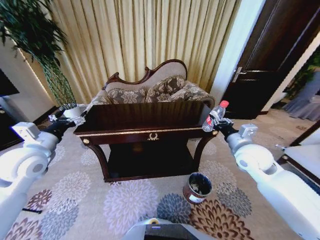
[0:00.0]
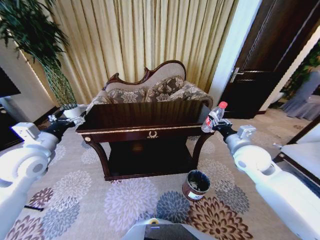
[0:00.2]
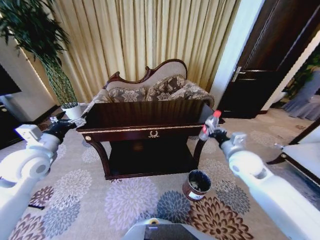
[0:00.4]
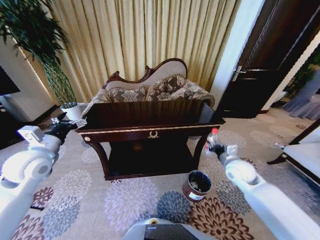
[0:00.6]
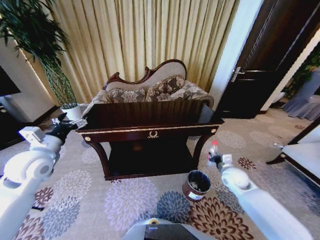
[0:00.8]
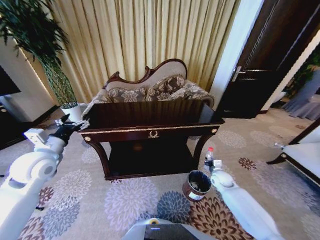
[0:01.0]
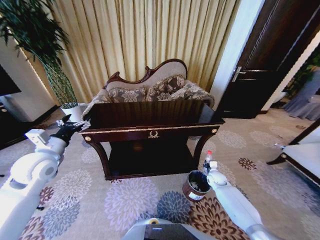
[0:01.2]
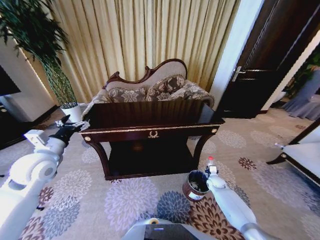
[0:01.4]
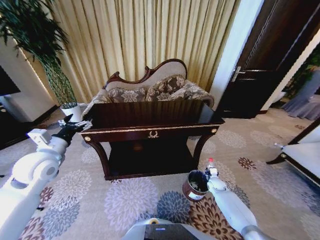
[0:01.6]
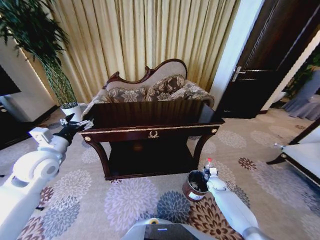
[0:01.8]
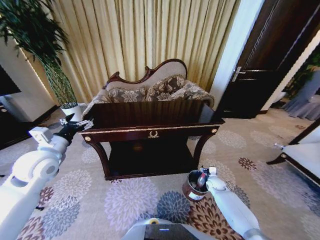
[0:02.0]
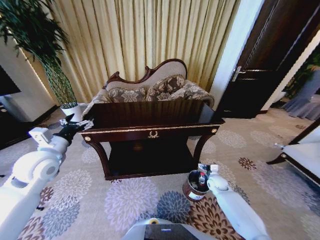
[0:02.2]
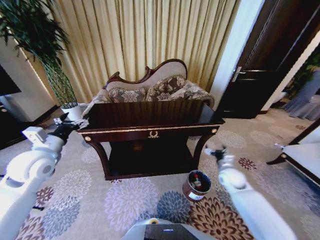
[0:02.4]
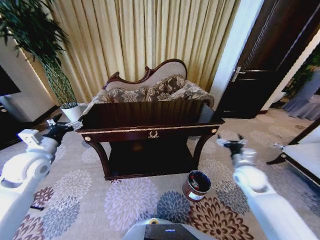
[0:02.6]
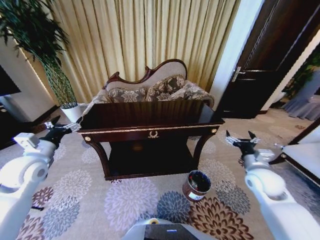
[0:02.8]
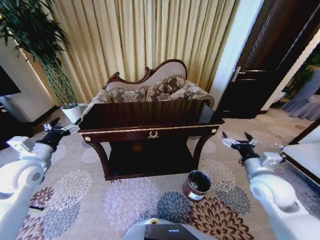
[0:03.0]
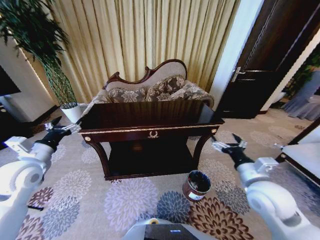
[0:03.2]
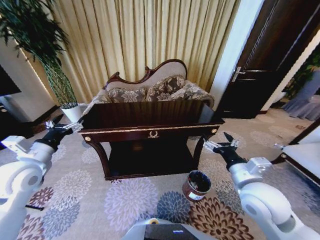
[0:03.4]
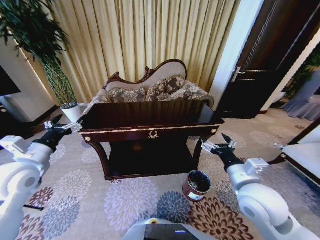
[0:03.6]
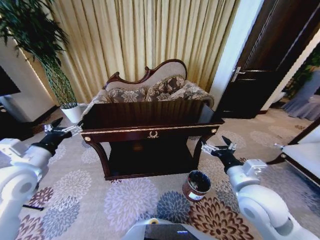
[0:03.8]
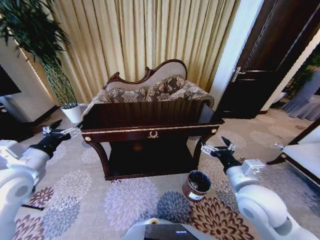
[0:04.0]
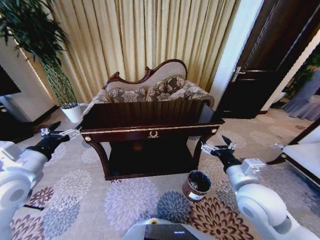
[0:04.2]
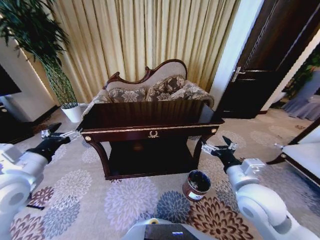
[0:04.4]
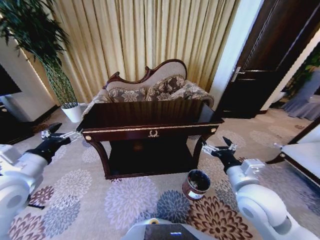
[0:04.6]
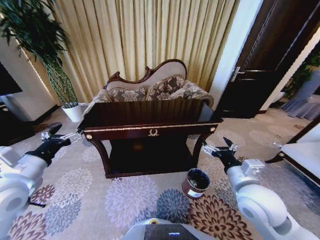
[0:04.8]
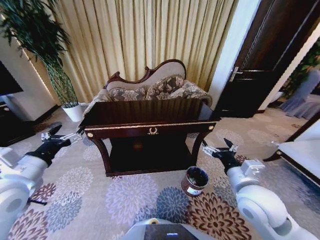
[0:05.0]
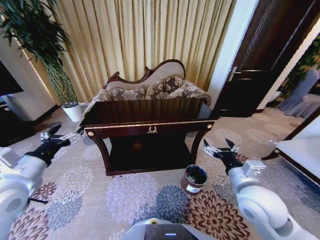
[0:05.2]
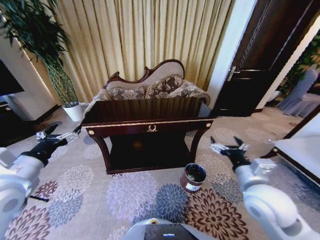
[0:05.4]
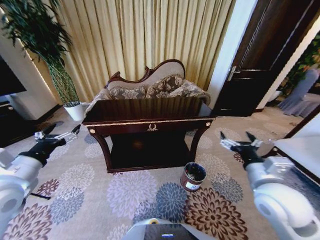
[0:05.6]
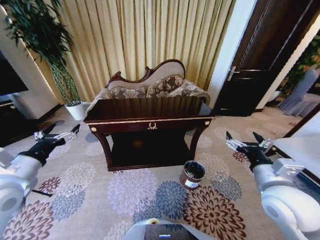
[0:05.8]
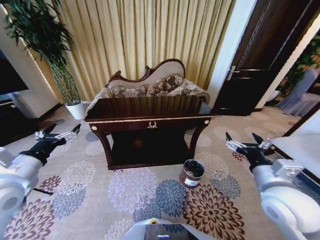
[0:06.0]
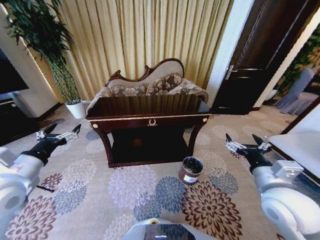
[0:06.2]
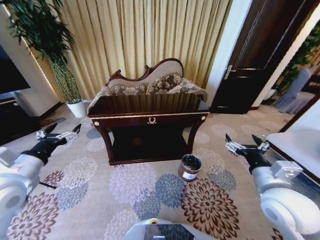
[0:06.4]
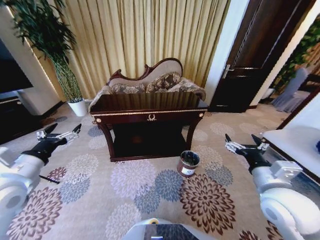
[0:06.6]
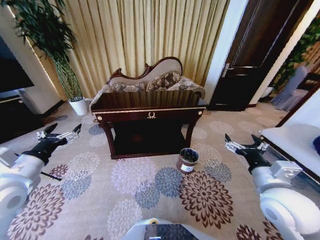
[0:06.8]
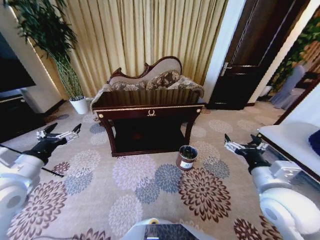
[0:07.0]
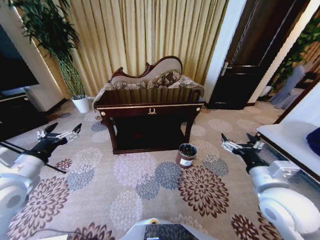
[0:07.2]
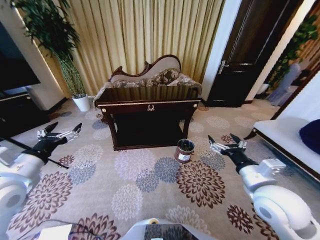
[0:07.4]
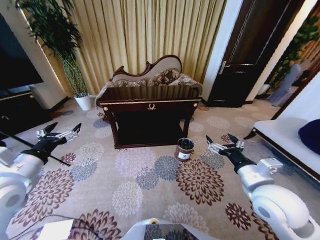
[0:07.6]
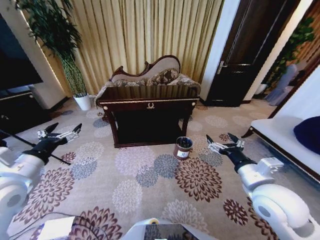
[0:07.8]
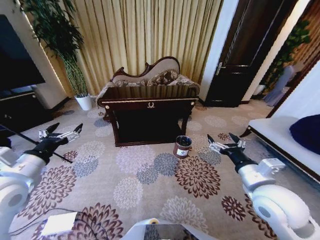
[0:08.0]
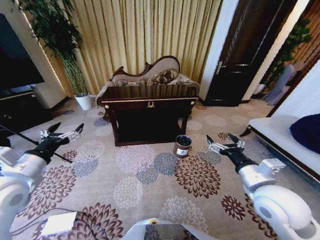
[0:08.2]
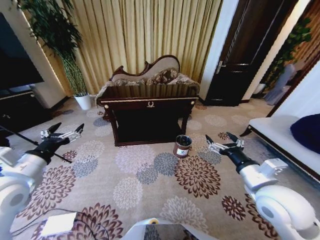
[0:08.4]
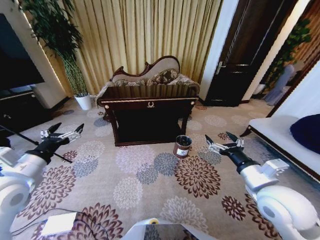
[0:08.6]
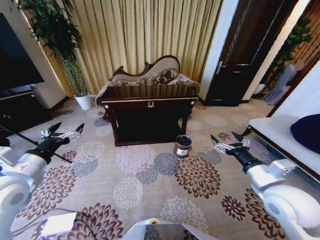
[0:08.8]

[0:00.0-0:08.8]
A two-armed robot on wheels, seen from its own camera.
Task of the whole recording: Move to the front of the table and place the trash on the table into the trash bin.
0:00.0 to 0:01.4: The right gripper is displaced downward by roughly 35 cm.
0:01.4 to 0:03.0: The right gripper travels upward and backward by some 35 cm, and opens.
0:03.0 to 0:04.4: The right gripper shifts about 10 cm to the left. Meanwhile the left gripper is displaced backward by about 5 cm.
0:04.4 to 0:05.8: The right gripper heads to the right, covering roughly 5 cm.

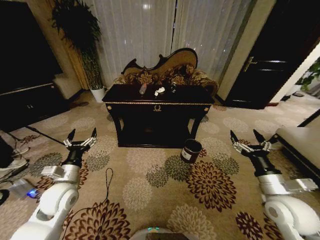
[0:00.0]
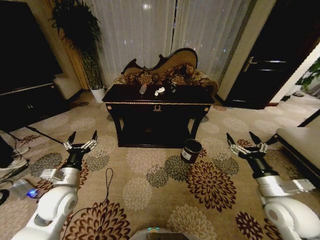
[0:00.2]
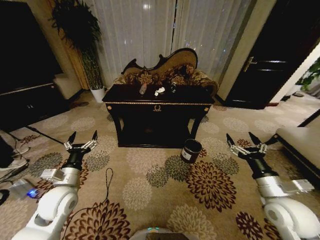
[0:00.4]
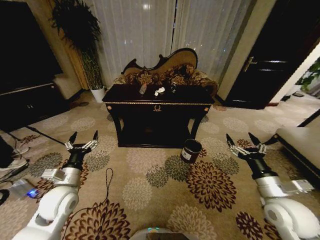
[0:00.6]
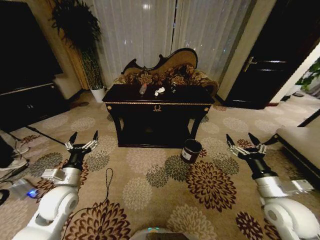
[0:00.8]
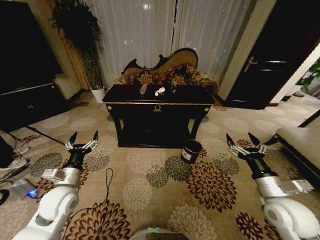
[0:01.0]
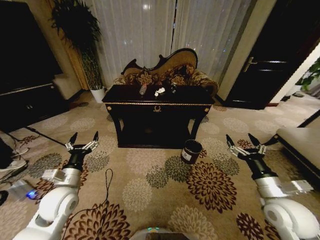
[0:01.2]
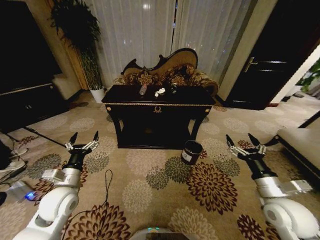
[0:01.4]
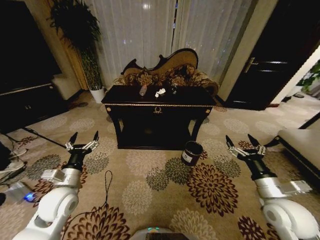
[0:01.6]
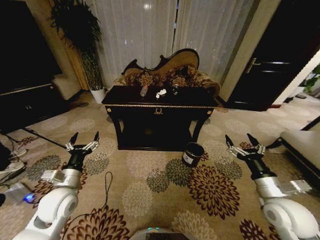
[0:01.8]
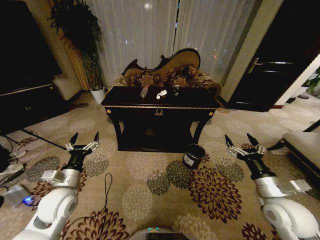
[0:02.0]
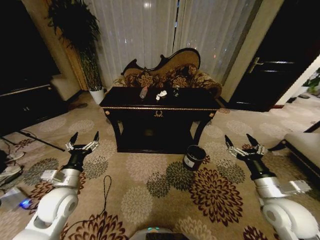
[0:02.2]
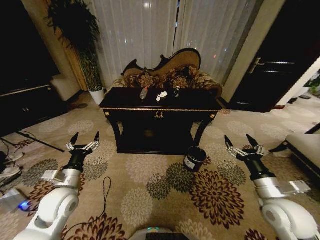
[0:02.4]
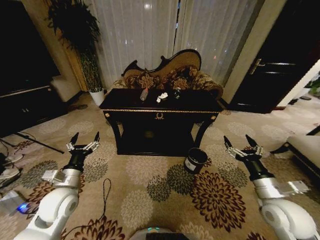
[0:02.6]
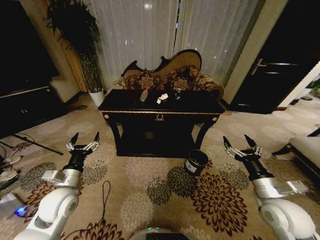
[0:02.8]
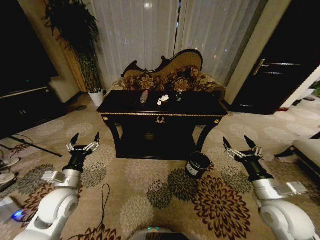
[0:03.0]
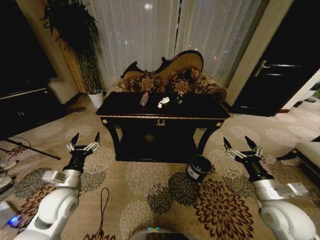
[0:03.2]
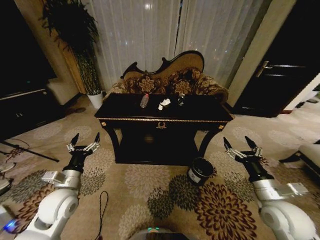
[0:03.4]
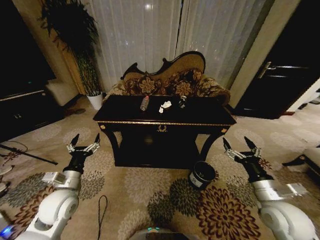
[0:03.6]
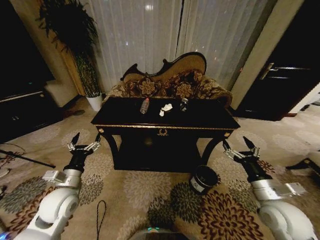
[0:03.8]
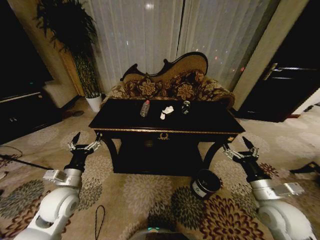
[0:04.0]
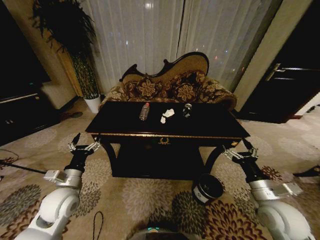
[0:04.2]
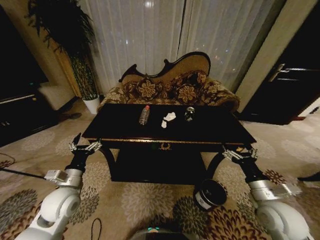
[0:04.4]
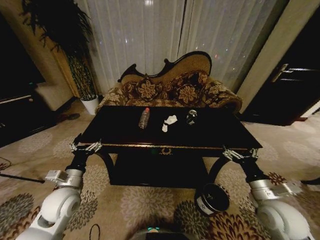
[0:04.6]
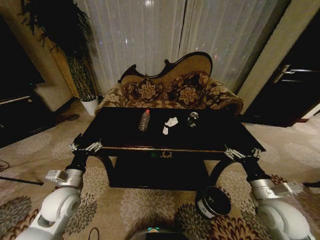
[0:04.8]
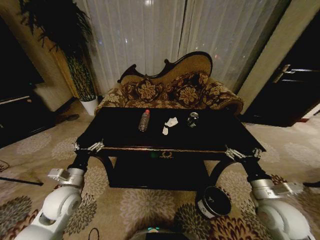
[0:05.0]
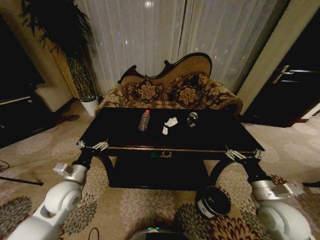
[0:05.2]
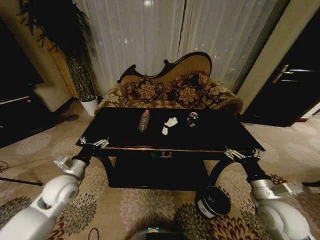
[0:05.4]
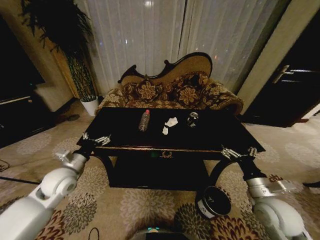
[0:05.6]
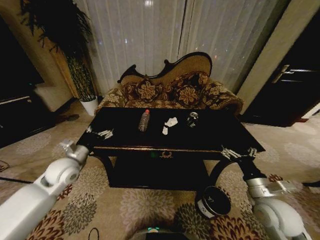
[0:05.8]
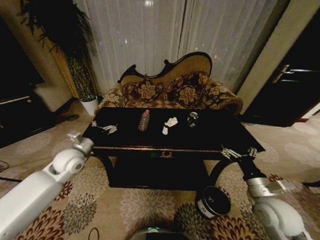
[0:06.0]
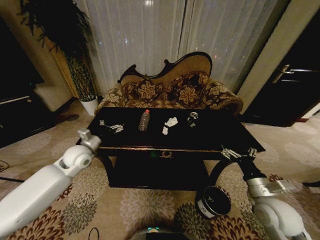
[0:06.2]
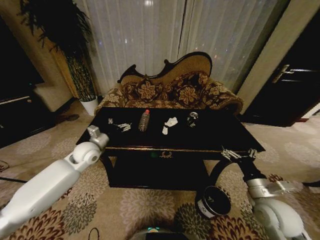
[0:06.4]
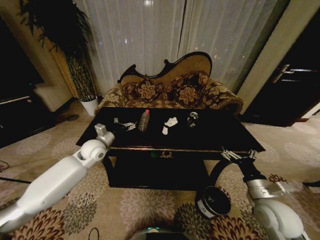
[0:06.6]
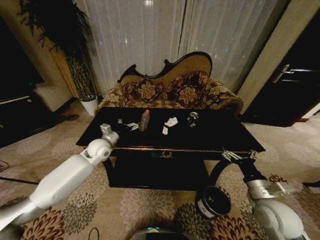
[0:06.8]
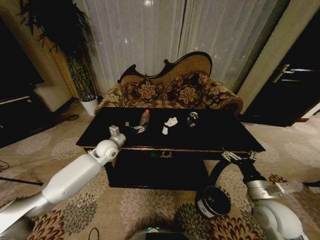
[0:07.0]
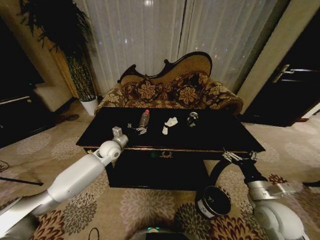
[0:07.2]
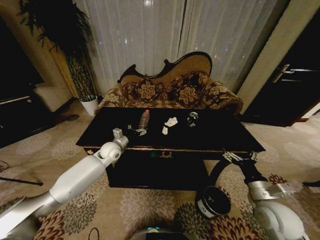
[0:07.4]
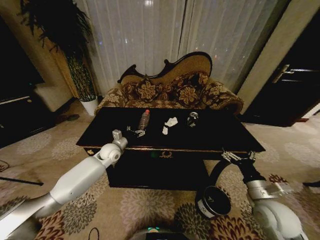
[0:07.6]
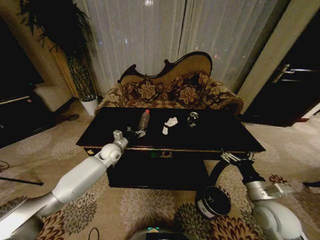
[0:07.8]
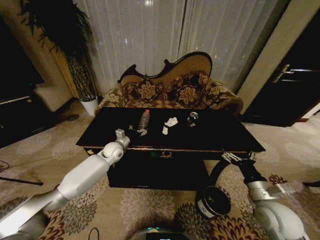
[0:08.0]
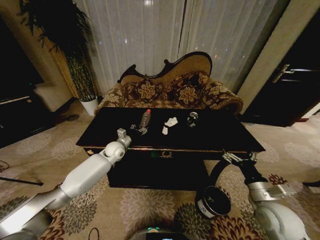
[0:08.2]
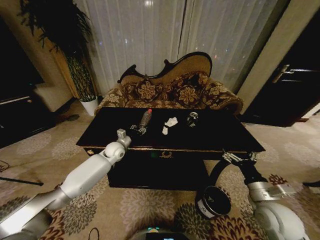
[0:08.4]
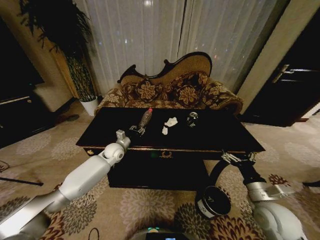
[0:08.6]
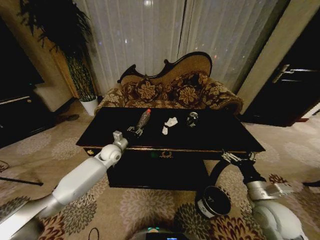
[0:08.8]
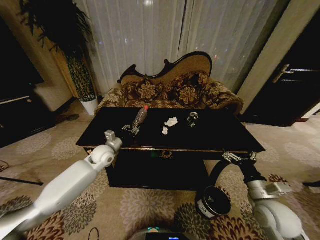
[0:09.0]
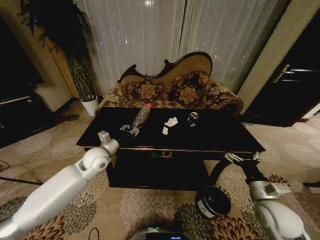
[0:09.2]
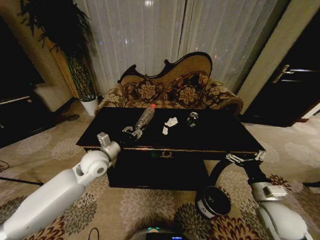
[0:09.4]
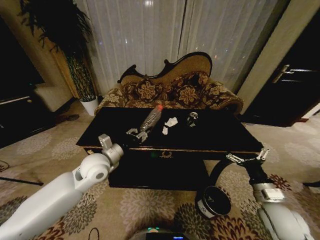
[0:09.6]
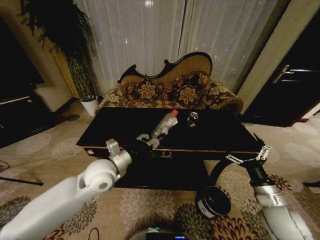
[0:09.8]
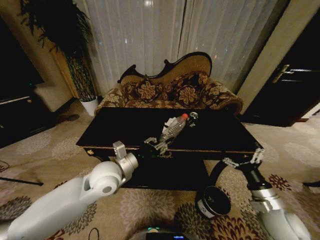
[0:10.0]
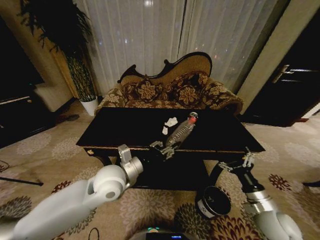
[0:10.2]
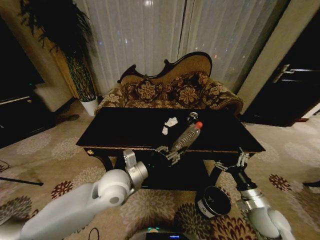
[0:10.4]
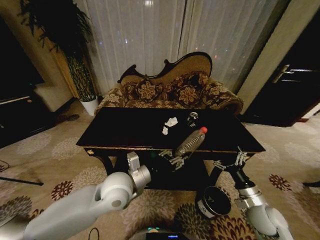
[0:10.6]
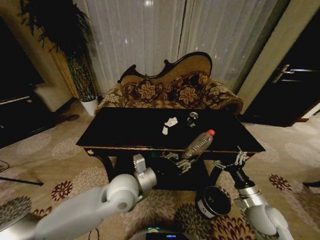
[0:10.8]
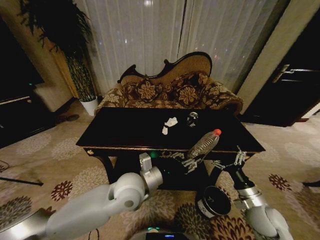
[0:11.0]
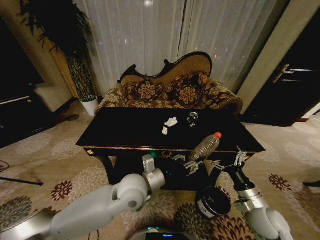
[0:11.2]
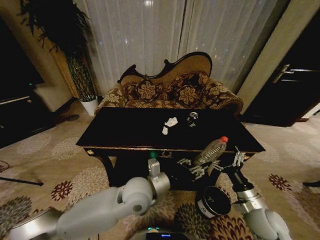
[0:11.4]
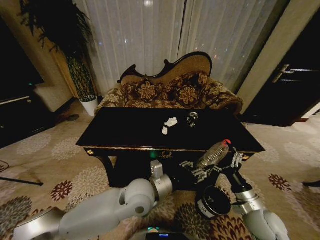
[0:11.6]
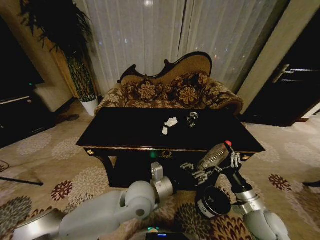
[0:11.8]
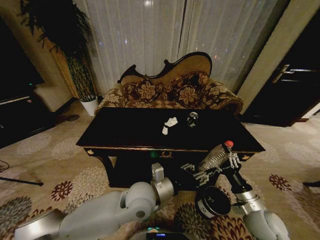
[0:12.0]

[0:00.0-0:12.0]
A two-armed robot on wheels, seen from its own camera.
Task of the whole recording: Move to the front of the table and place the trash on the table into the trash bin.
0:04.4 to 0:06.0: The left gripper travels forward and upward by about 15 cm.
0:06.0 to 0:07.6: The left gripper moves to the right, forward and downward, roughly 15 cm.
0:07.6 to 0:09.0: The left gripper closes up.
0:09.0 to 0:10.4: The left gripper shifts approximately 20 cm backward, to the right and upward; the right gripper goes about 5 cm downward.
0:10.4 to 0:12.0: The left gripper moves to the right, approximately 10 cm. Meanwhile the right gripper closes.

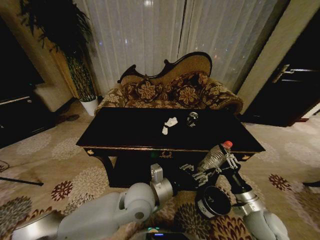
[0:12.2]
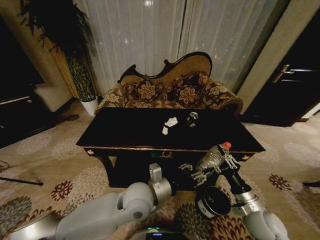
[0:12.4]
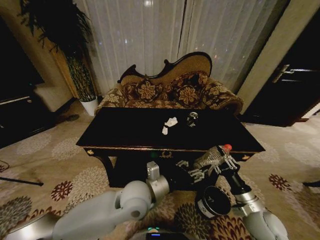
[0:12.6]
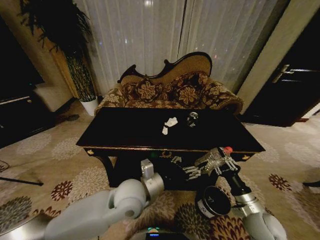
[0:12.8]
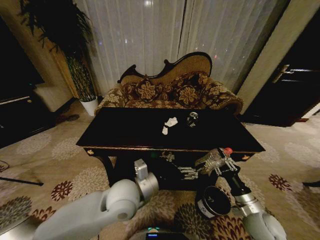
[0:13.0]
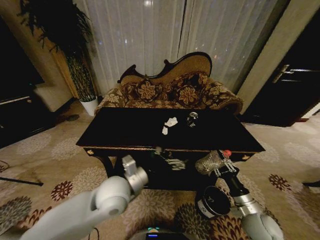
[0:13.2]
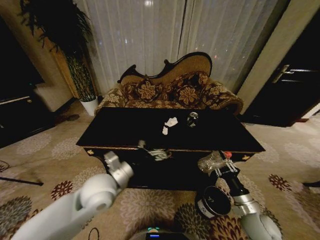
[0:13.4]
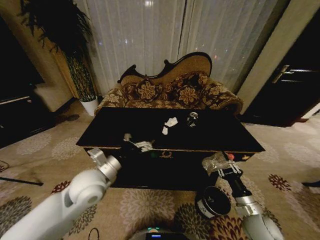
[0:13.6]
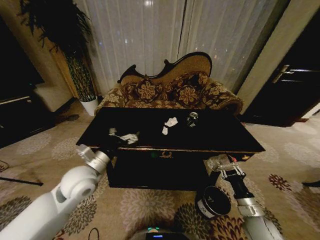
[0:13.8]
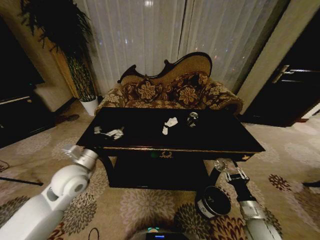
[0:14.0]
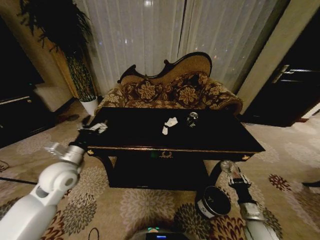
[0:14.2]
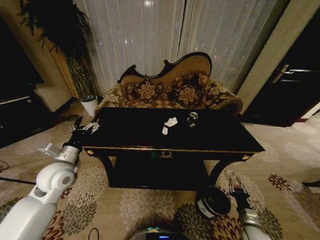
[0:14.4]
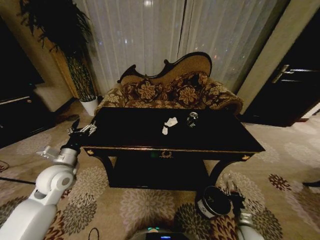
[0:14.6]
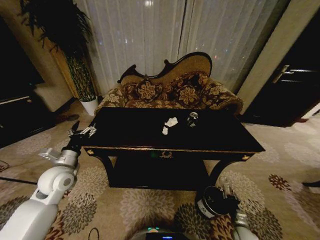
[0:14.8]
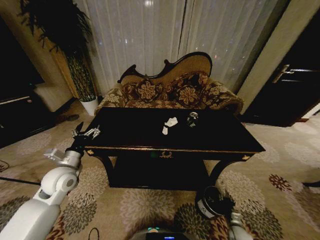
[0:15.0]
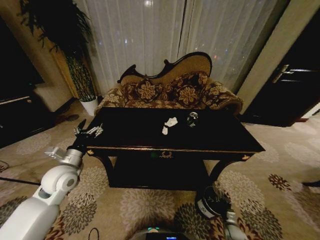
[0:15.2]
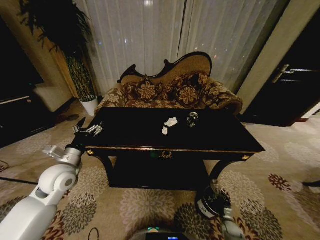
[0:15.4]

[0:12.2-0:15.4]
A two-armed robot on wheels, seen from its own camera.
Task of the whole recording: Move to the front of the table and place the trash on the table into the trash bin.
0:12.2 to 0:13.8: The left gripper heads to the left, covering roughly 20 cm, and opens, while the right gripper changes place by approximately 5 cm.
0:13.8 to 0:15.4: The right gripper is displaced downward by some 25 cm, while the left gripper moves to the left, some 10 cm.
